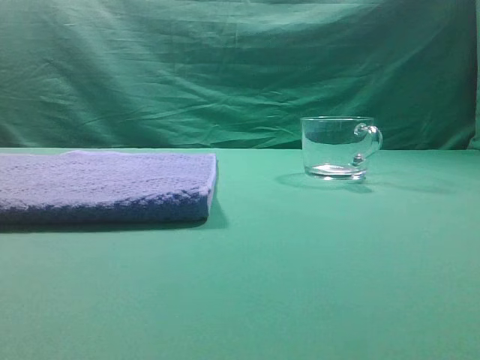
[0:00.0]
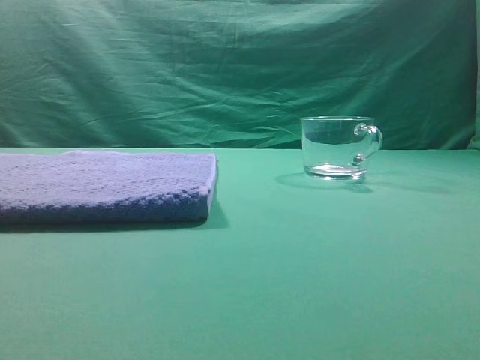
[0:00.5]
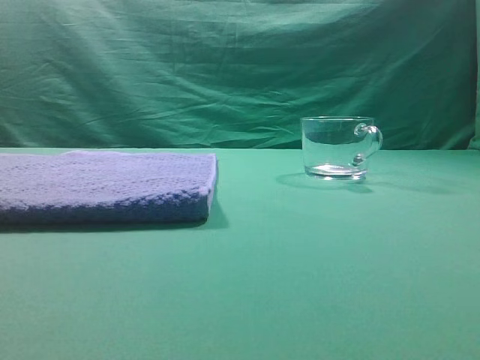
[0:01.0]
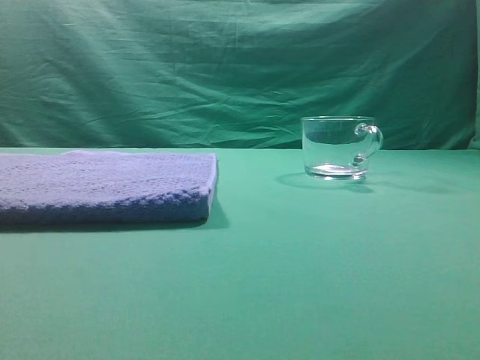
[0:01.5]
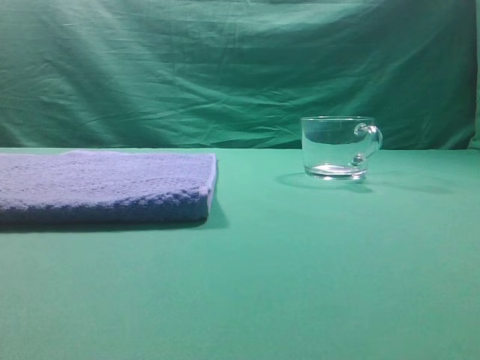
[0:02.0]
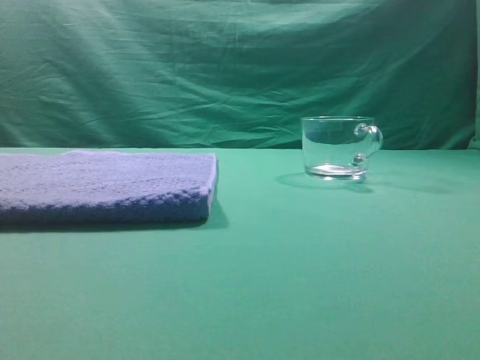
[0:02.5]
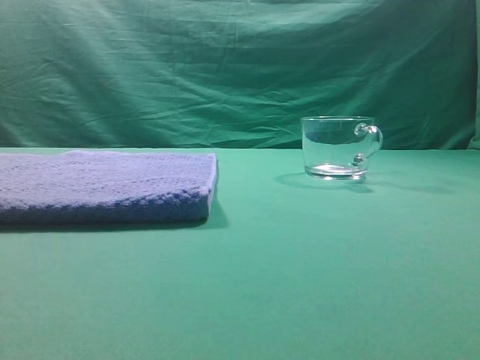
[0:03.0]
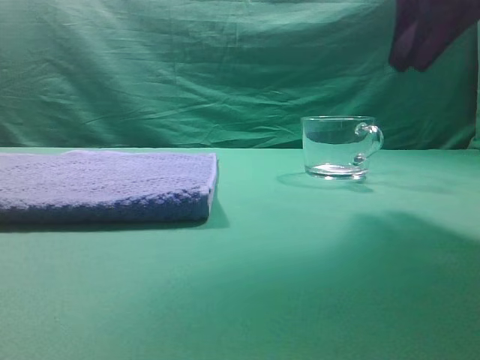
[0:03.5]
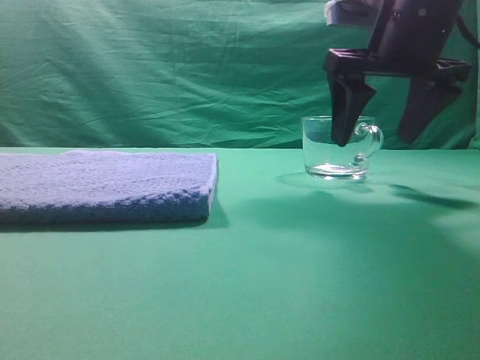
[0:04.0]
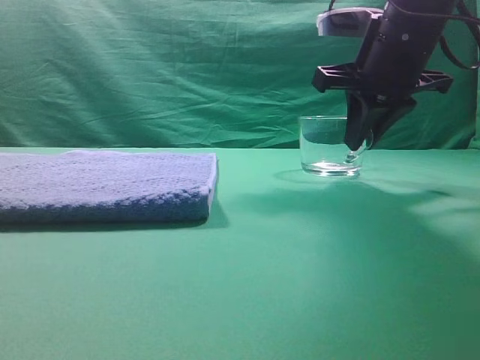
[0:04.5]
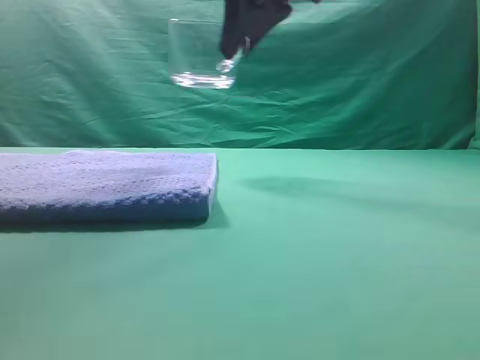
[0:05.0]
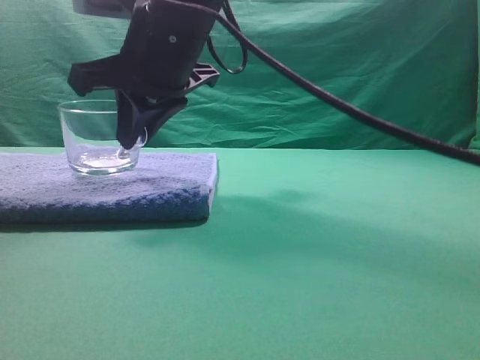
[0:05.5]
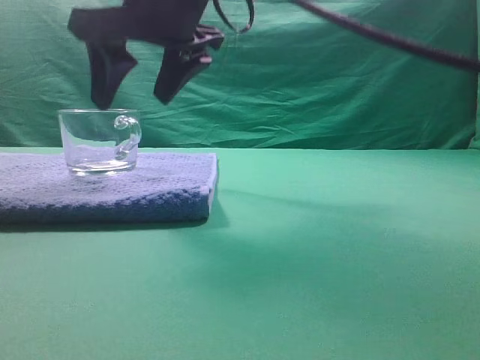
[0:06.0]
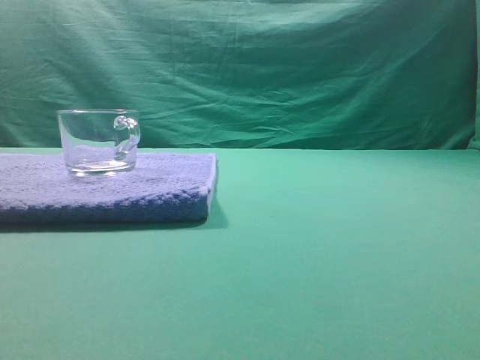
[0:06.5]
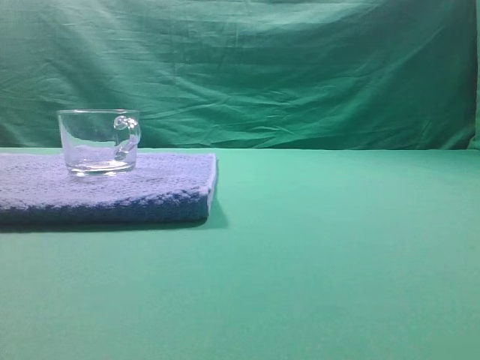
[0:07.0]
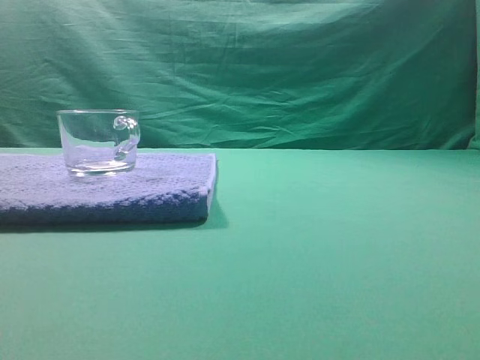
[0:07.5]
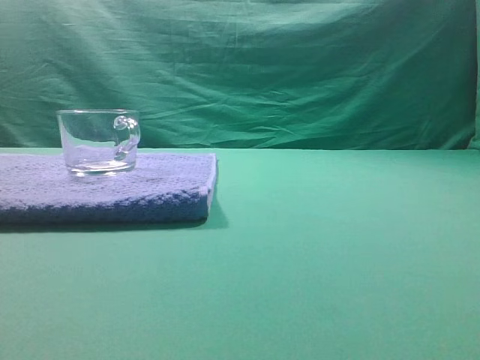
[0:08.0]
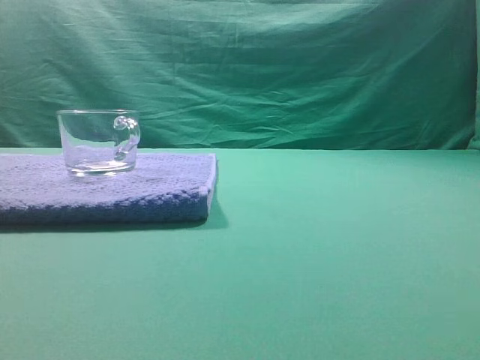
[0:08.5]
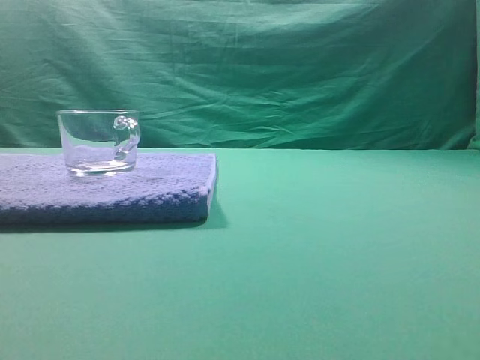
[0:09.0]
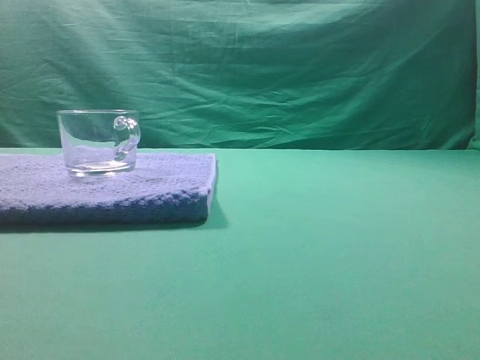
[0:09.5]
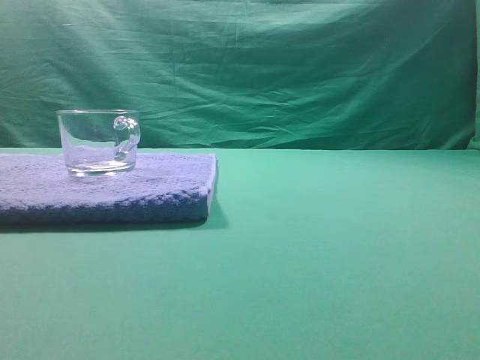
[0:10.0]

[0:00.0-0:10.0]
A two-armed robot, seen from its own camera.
Task of the whole recording: grasp the transparent glass cup and place it within the blue towel.
Step, 0:00.0 to 0:04.5: Grasp the transparent glass cup.
Step, 0:05.0 to 0:06.0: Place the glass cup on the blue zone.

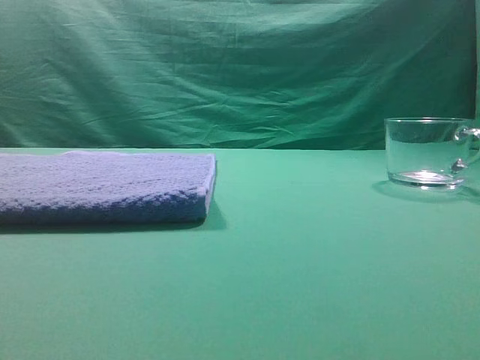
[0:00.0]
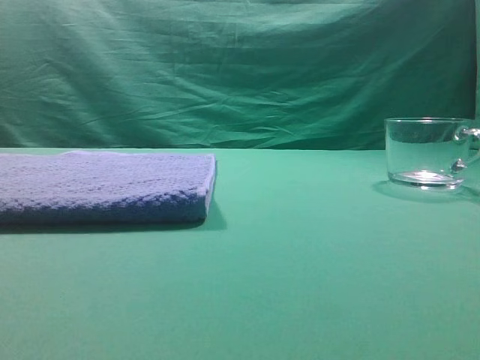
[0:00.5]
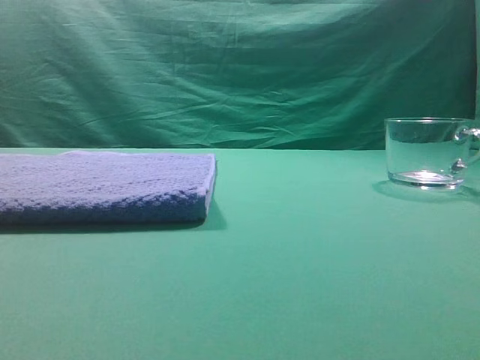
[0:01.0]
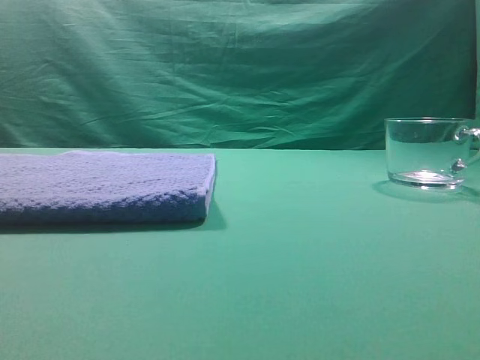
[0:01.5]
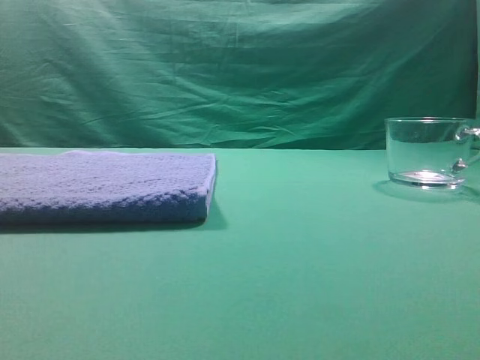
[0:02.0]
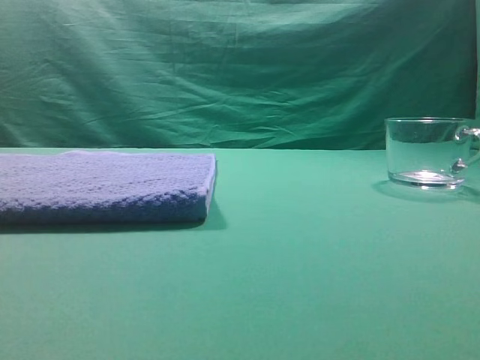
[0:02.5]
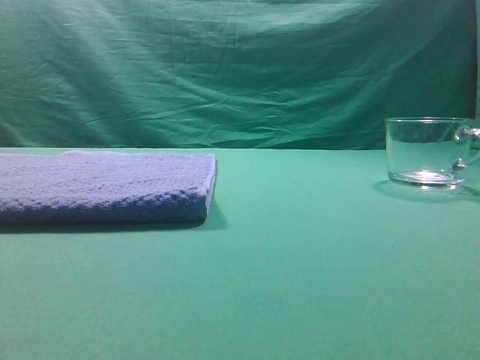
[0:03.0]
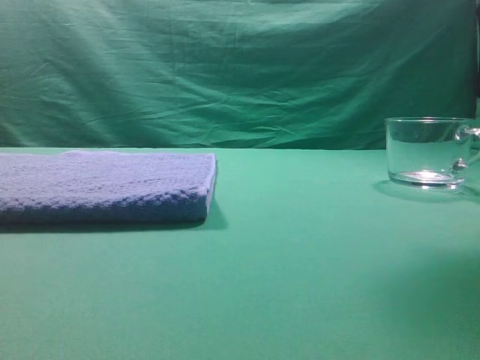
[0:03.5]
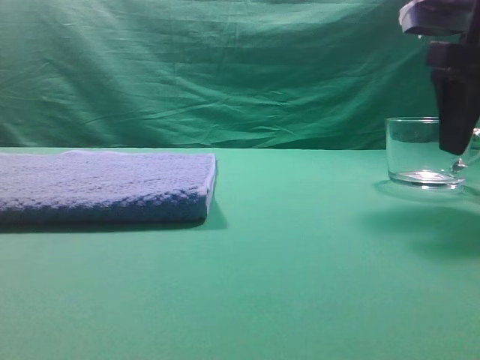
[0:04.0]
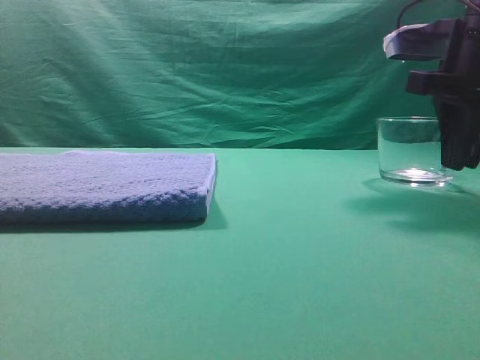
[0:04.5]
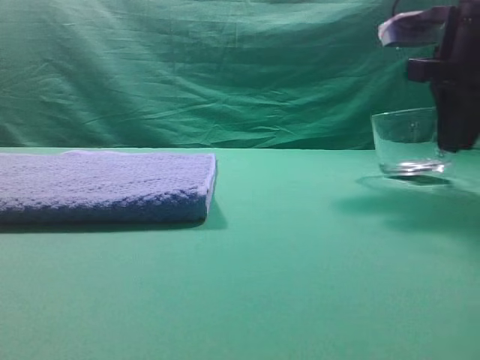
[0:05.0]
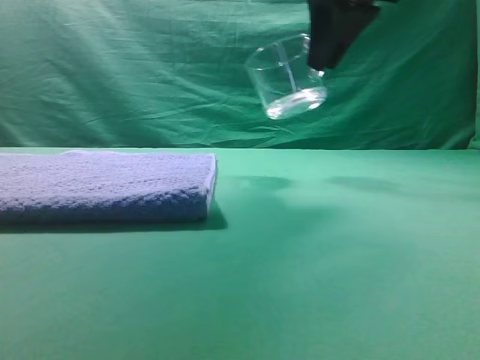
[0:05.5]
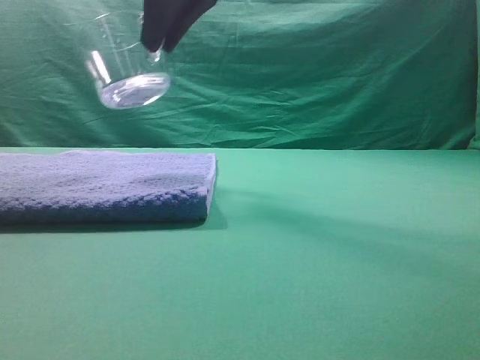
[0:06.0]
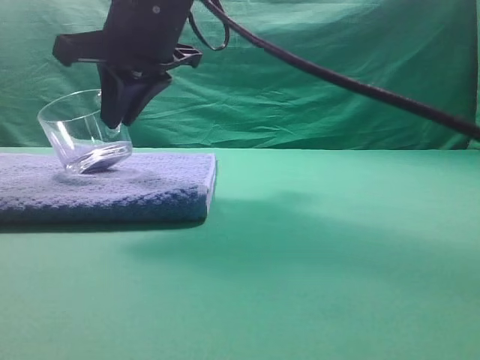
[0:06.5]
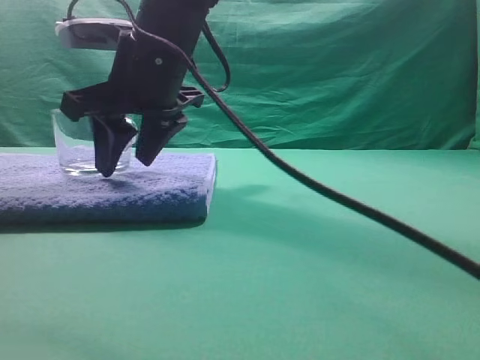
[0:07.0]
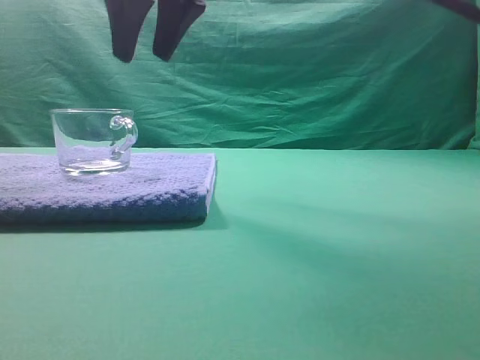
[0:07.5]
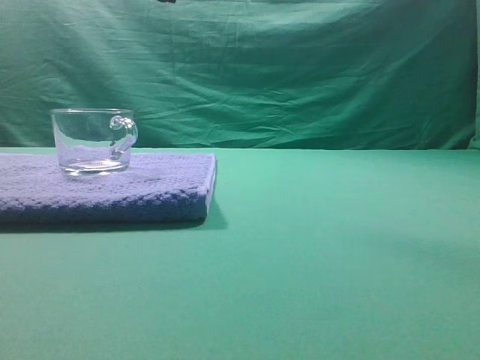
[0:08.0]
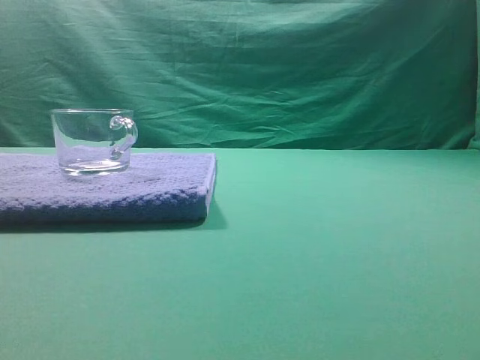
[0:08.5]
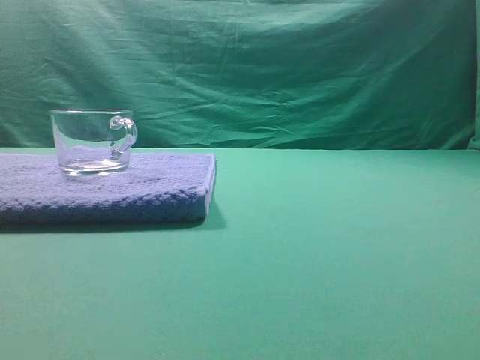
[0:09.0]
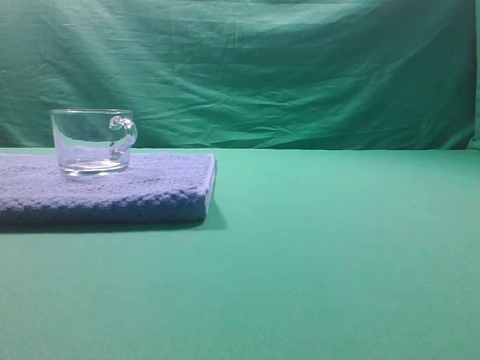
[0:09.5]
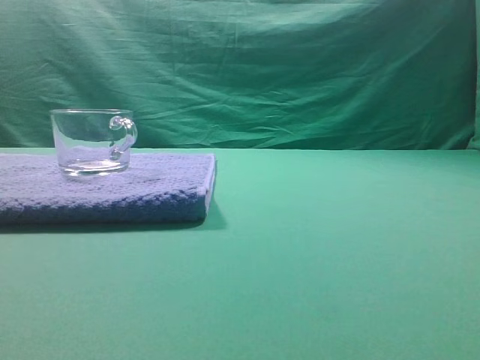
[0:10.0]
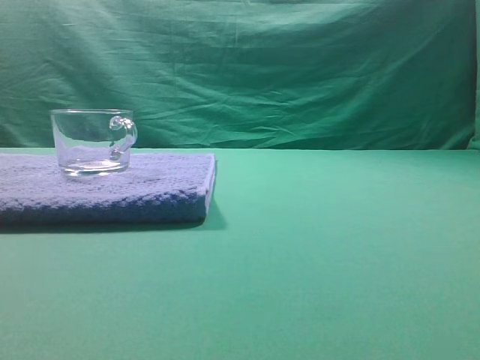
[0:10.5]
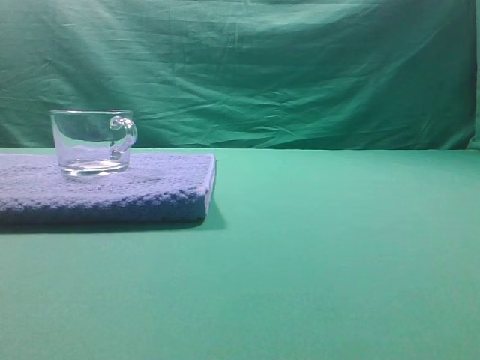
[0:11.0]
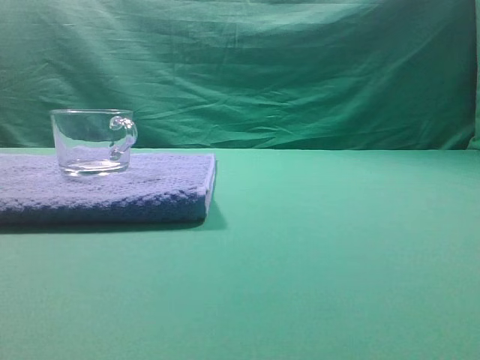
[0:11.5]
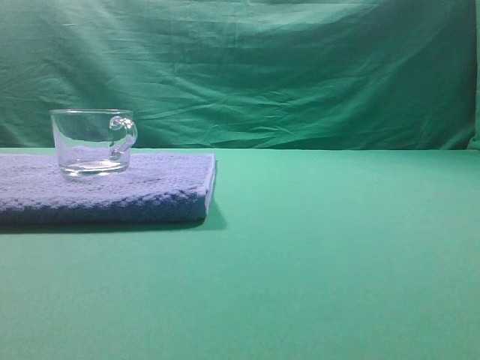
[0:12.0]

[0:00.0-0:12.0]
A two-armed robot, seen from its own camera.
Task of the whole recording: grasp the transparent glass cup and place it within the blue towel.
Step, 0:00.0 to 0:05.0: Grasp the transparent glass cup.
Step, 0:05.5 to 0:07.0: Place the glass cup on the blue zone.

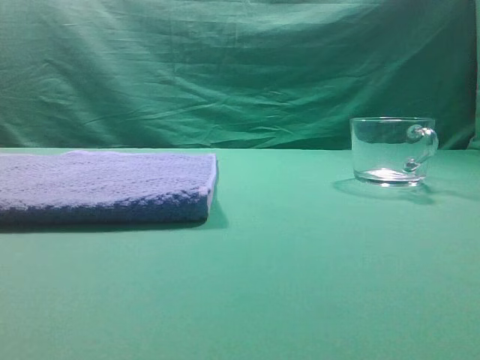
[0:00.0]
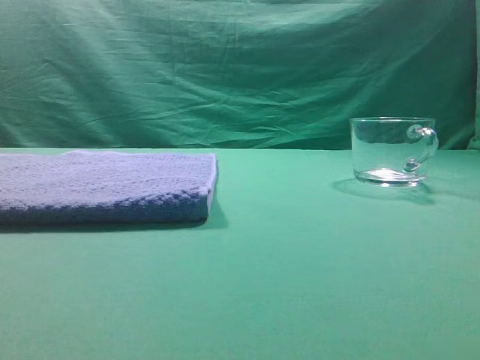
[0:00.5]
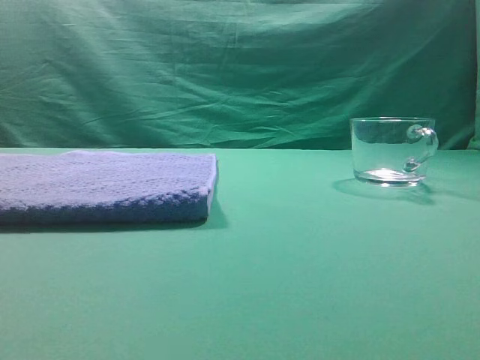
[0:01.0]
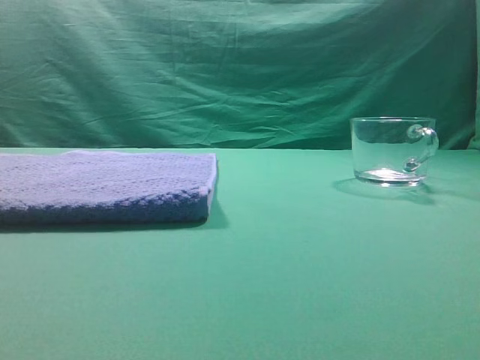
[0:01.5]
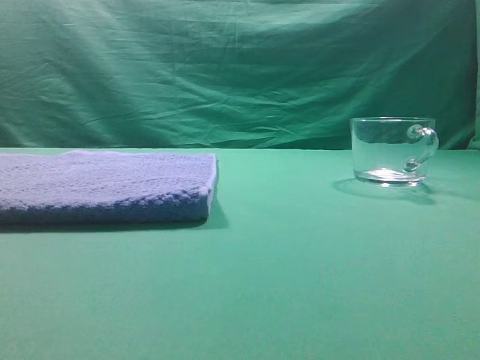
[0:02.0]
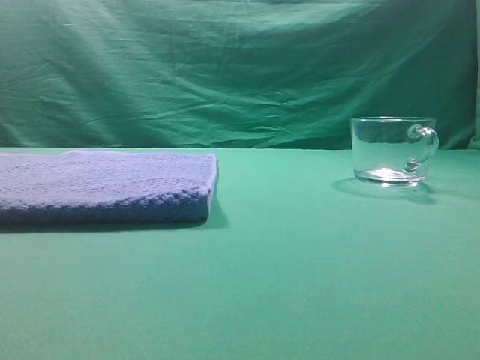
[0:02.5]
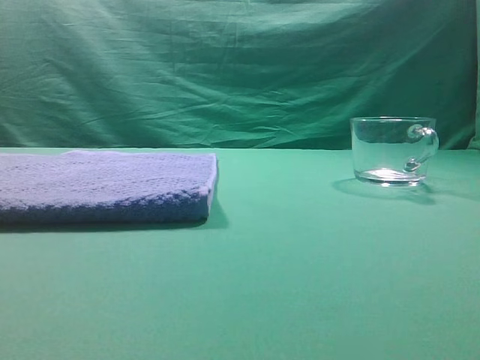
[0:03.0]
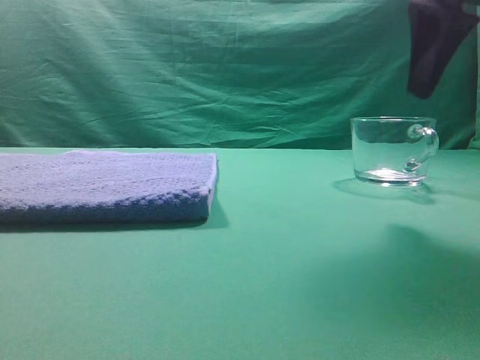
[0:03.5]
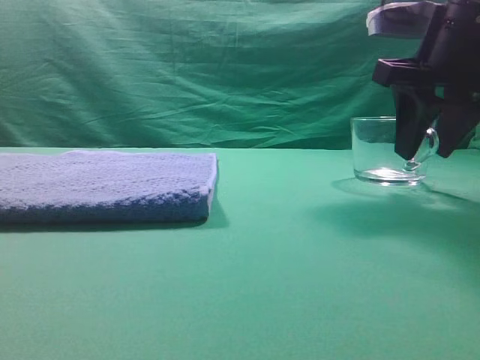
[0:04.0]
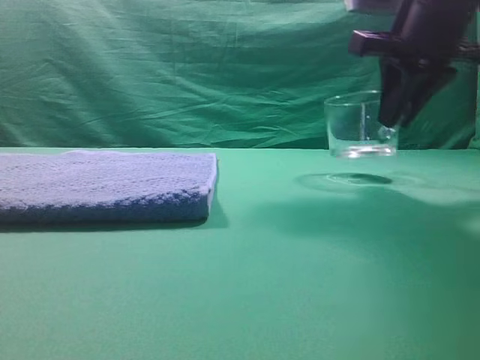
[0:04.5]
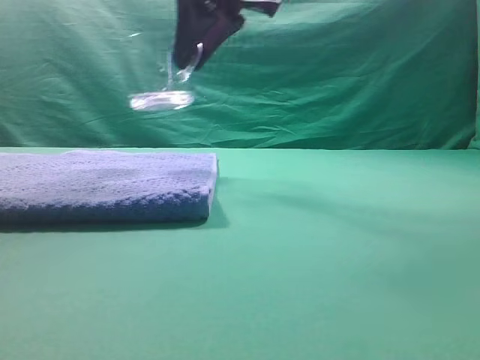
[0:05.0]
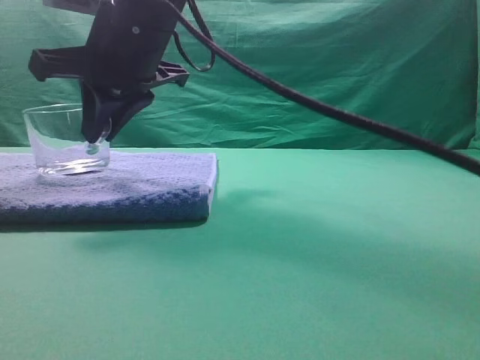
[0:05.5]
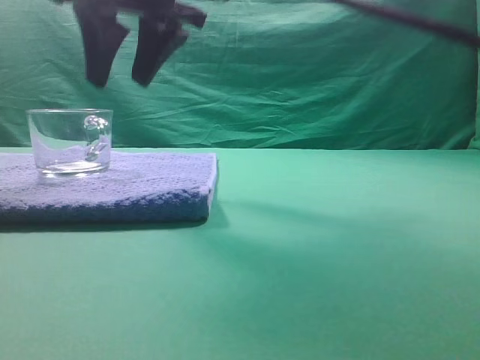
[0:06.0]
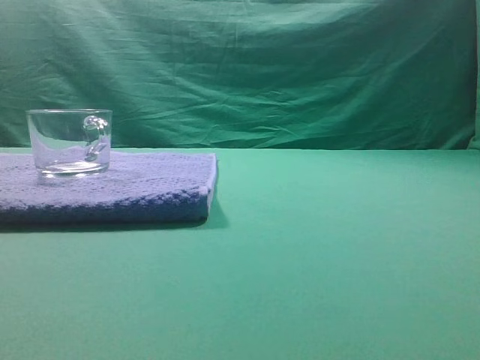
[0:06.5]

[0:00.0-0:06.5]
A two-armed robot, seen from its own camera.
Task of the whole recording: grasp the transparent glass cup and place it within the blue towel.
Step, 0:00.0 to 0:04.0: Grasp the transparent glass cup.
Step, 0:05.0 to 0:05.5: Place the glass cup on the blue zone.
